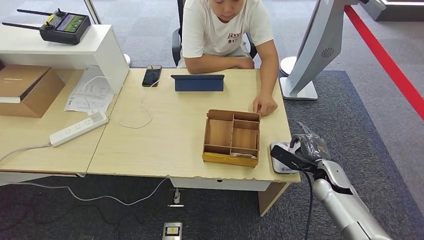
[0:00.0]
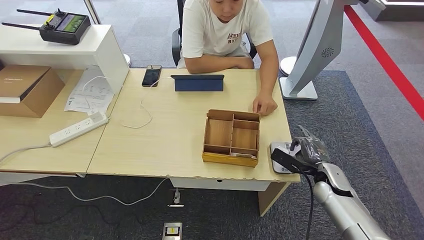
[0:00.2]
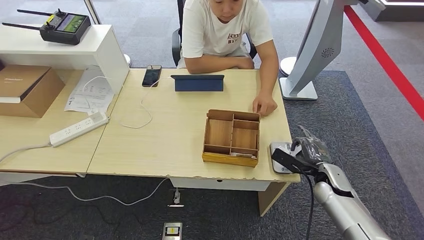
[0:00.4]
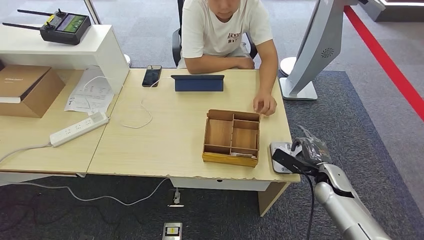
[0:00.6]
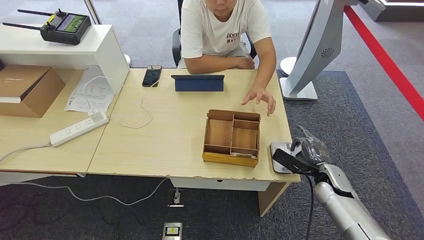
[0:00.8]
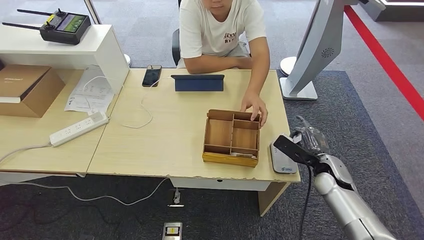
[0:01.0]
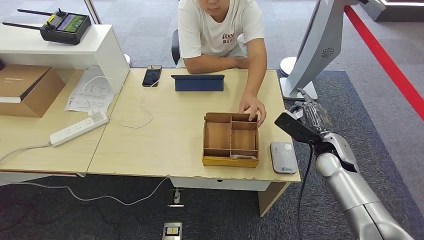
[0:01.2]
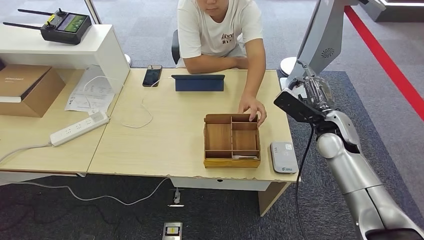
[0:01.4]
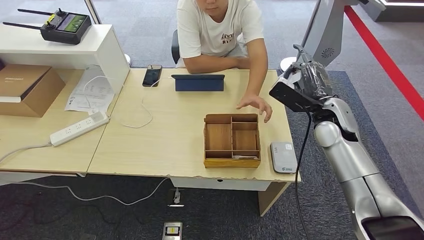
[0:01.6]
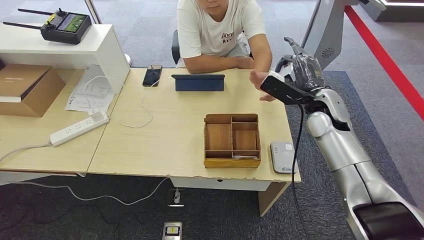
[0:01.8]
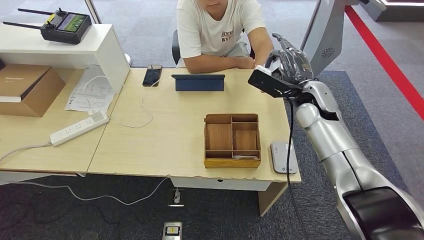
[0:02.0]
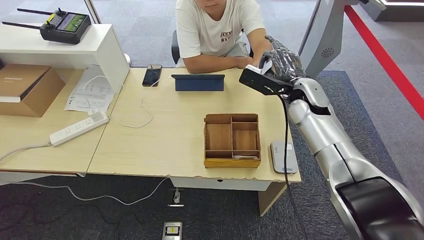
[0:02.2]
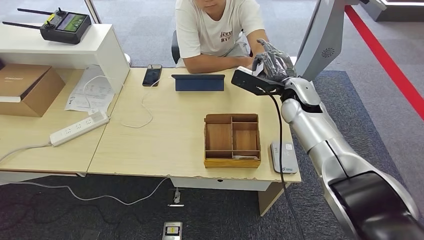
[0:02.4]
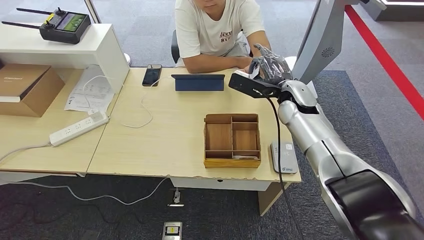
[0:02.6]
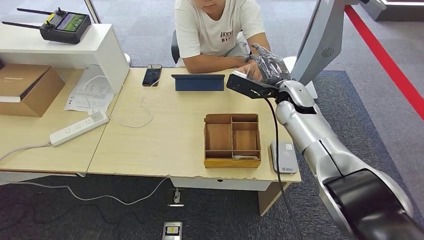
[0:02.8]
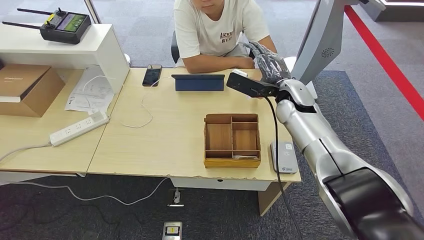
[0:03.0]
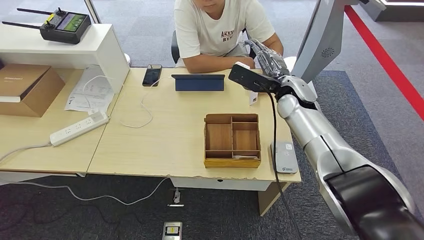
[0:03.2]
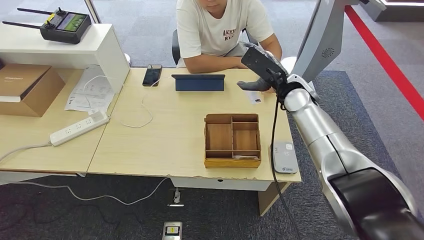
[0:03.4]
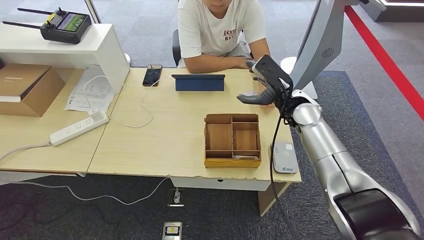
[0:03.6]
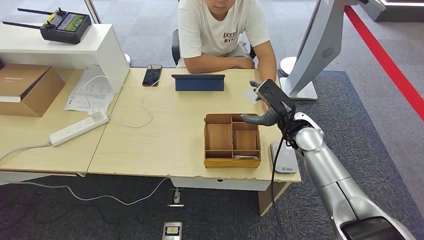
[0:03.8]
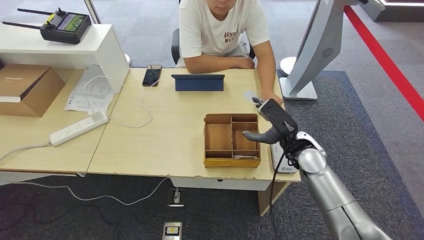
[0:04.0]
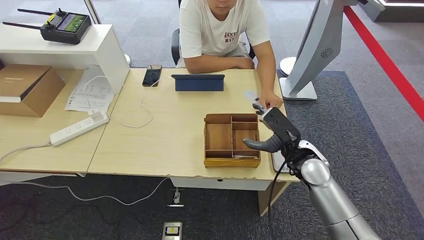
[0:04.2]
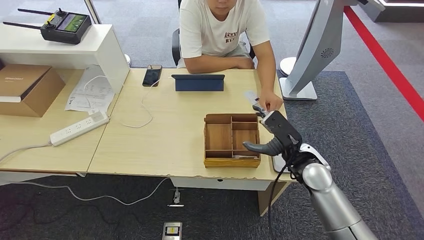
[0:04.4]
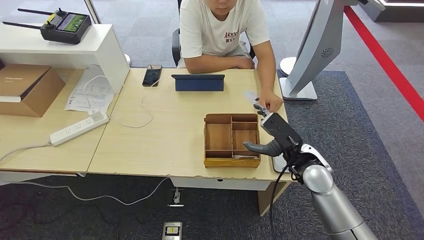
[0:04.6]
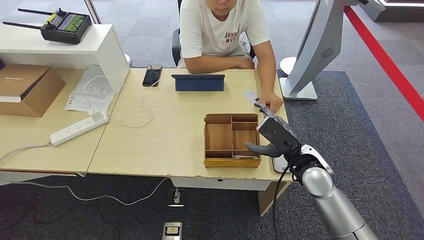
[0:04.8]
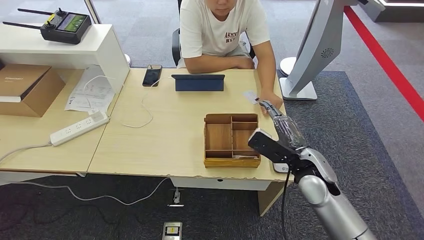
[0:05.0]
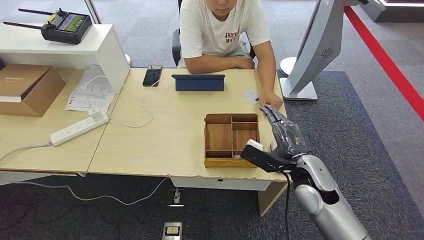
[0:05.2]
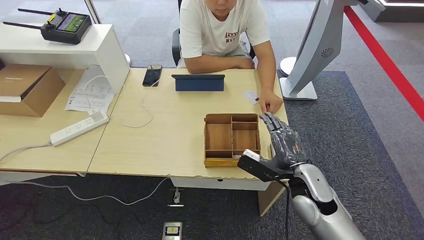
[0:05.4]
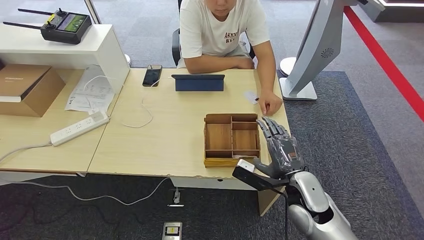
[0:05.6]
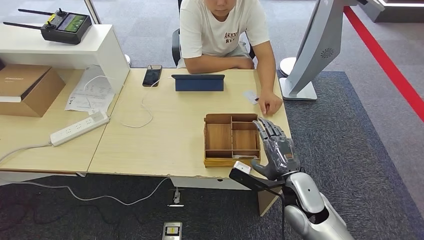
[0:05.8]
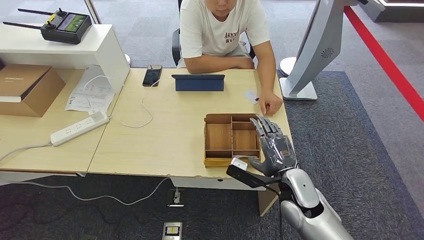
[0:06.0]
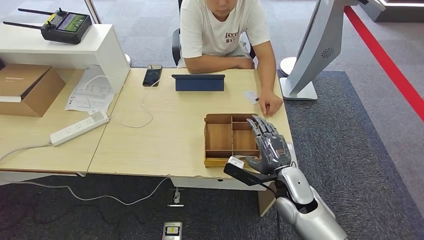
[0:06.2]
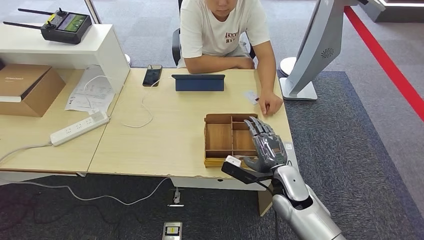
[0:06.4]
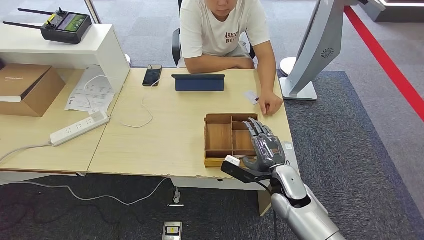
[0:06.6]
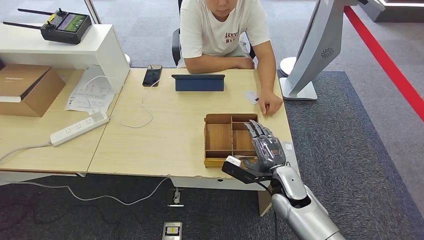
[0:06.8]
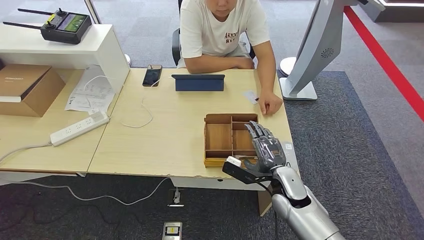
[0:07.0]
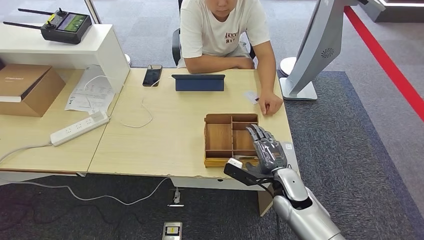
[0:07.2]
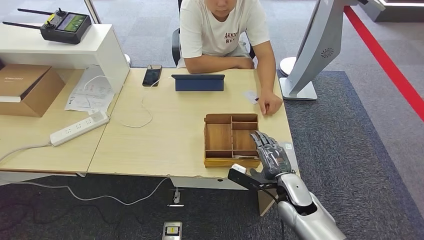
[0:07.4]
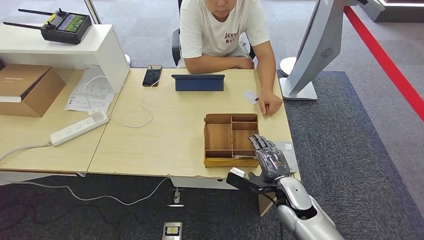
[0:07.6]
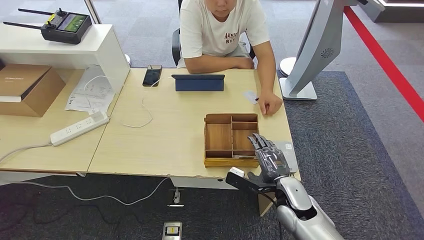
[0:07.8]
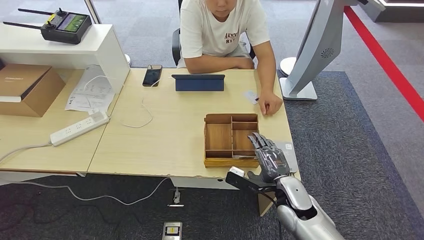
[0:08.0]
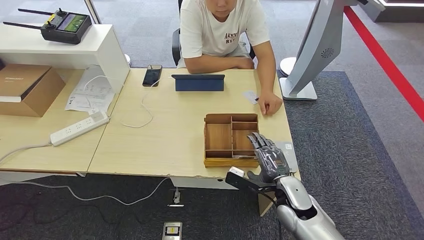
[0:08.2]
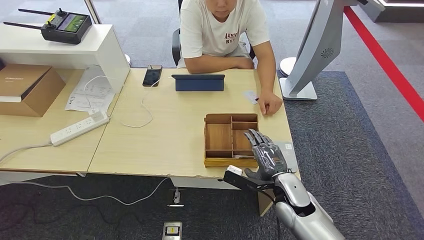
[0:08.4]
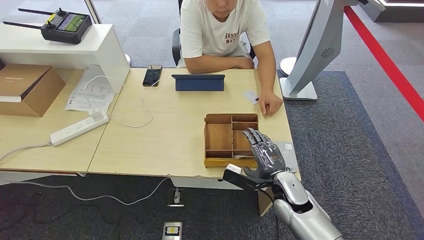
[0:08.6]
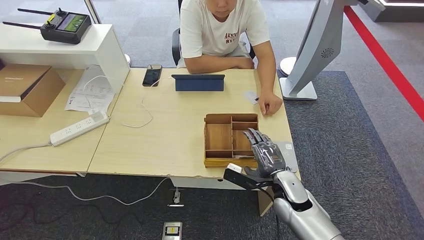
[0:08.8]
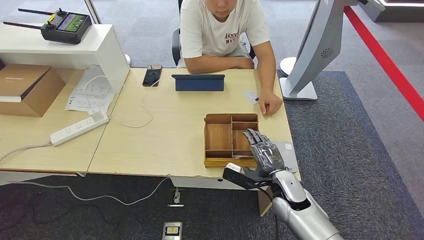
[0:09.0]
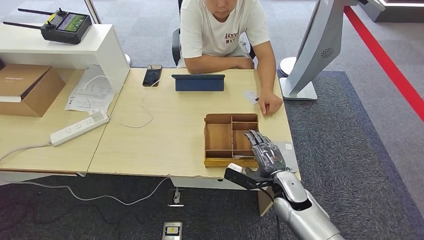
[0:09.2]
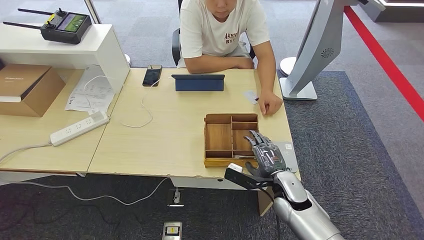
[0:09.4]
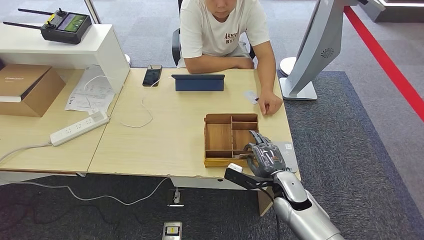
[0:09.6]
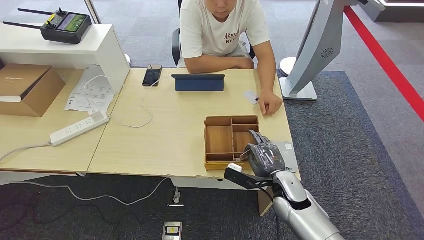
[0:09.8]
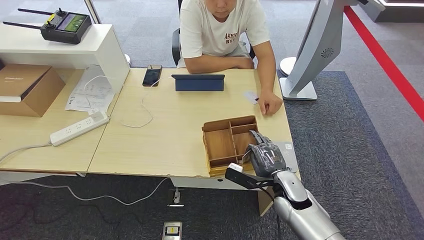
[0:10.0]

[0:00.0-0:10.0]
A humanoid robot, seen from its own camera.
Step, 0:02.0 to 0:04.0: Hand the ID card to the person.
0:00.0 to 0:01.4: The right hand moves upward and forward, about 15 cm.
0:01.4 to 0:02.8: The right hand travels to the left and forward by approximately 10 cm.
0:02.8 to 0:04.2: The right hand is displaced backward and downward by approximately 15 cm.
0:04.2 to 0:05.8: The right hand is displaced backward by roughly 5 cm.
0:05.8 to 0:07.2: The right hand shifts by roughly 5 cm.
0:07.2 to 0:10.0: The hands stay close to where they were, moving slightly.

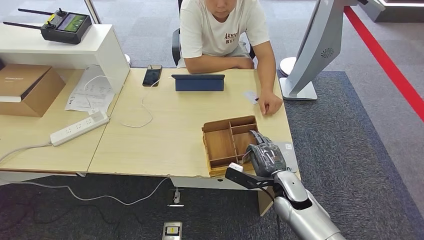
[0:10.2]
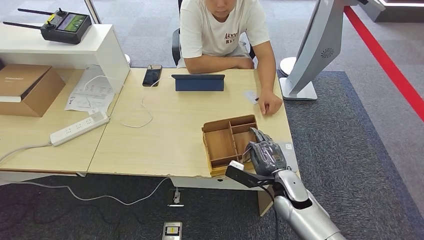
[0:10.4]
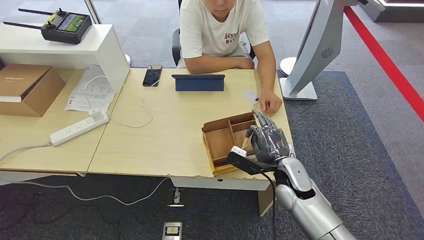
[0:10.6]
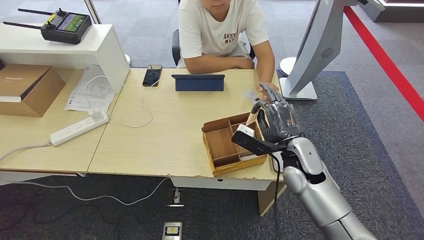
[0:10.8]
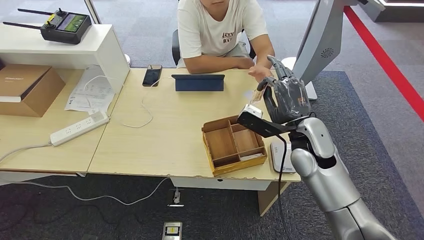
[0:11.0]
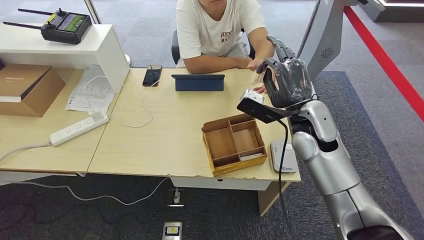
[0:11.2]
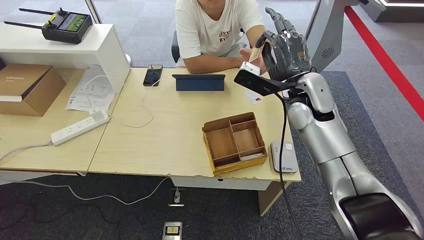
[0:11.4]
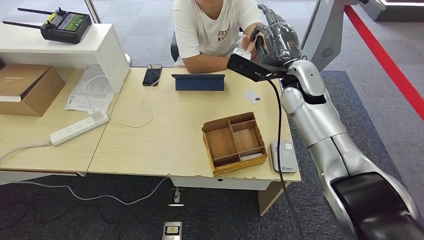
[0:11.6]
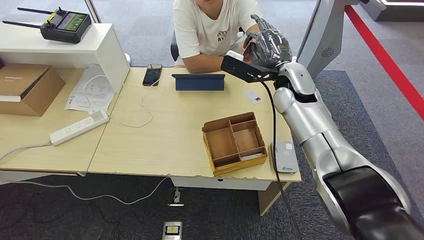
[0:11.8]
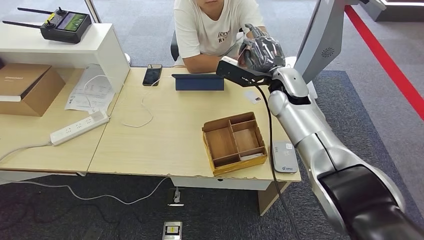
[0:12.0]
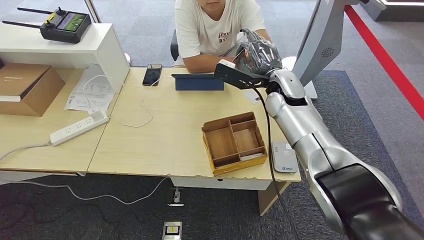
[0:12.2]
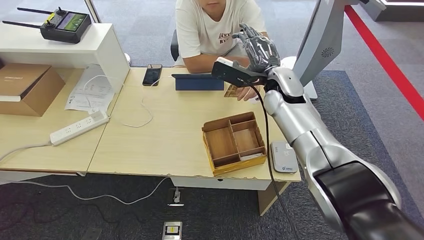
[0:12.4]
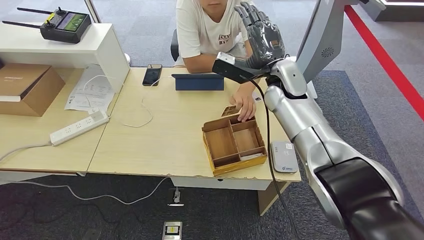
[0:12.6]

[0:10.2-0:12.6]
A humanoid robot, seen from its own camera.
Step, 0:10.8 to 0:12.6: Hand the room key to the person.
0:11.4 to 0:12.6: The right hand shifts by approximately 5 cm.

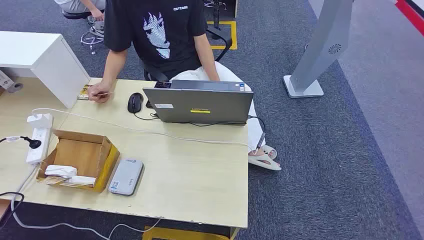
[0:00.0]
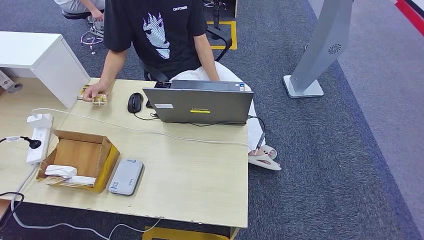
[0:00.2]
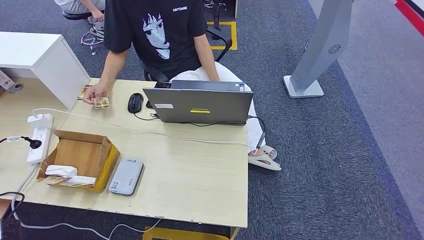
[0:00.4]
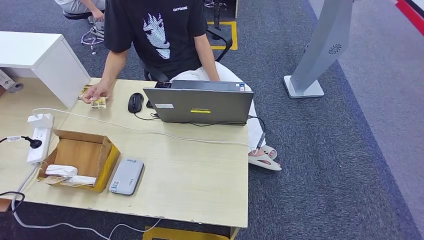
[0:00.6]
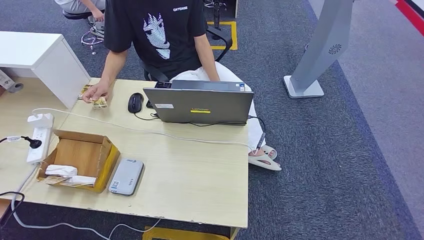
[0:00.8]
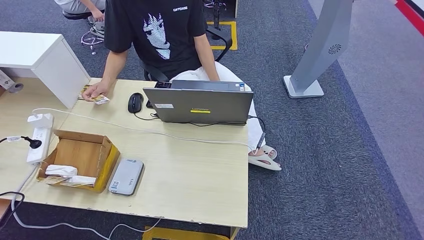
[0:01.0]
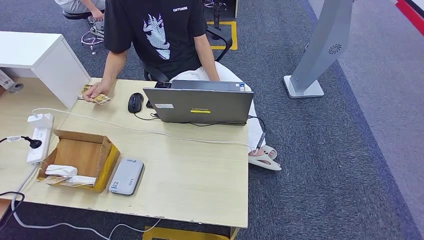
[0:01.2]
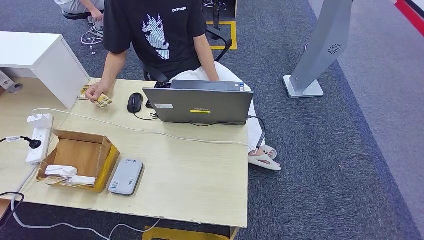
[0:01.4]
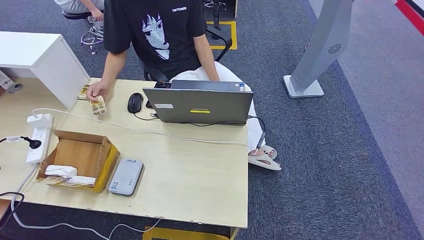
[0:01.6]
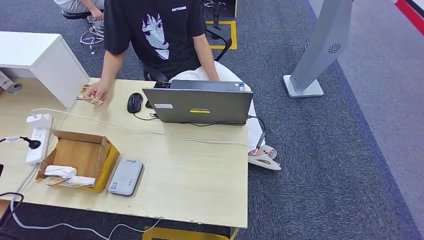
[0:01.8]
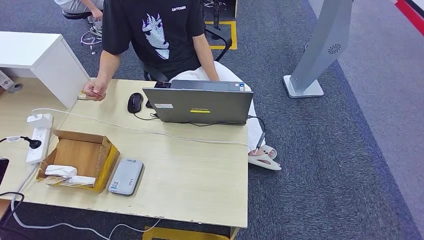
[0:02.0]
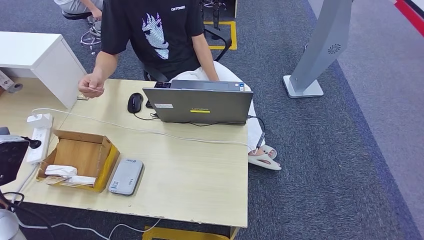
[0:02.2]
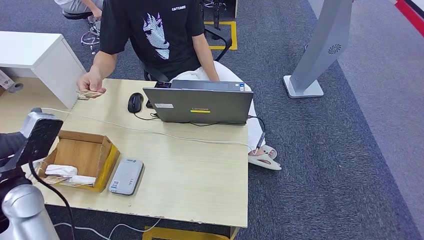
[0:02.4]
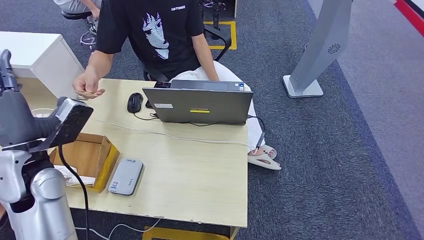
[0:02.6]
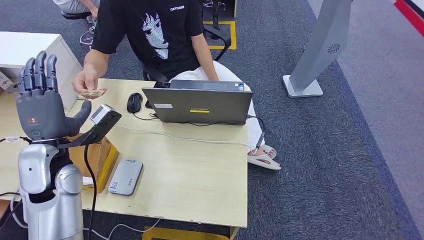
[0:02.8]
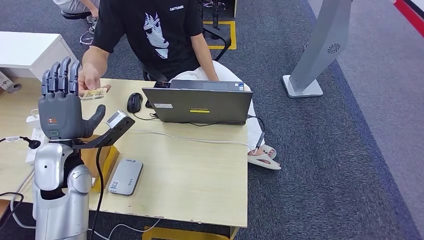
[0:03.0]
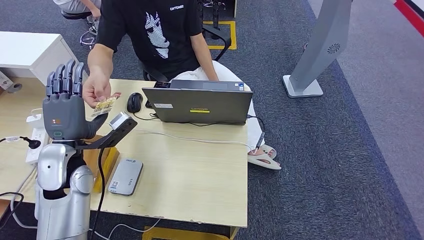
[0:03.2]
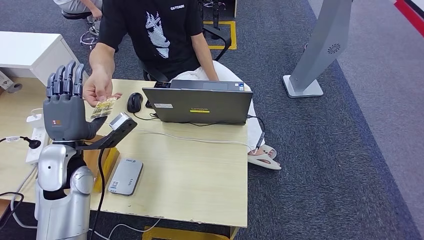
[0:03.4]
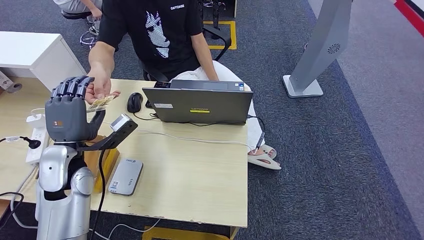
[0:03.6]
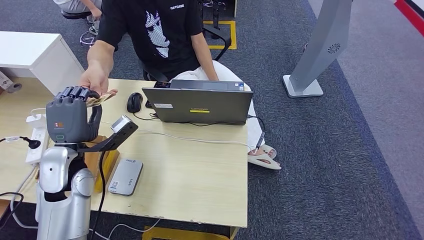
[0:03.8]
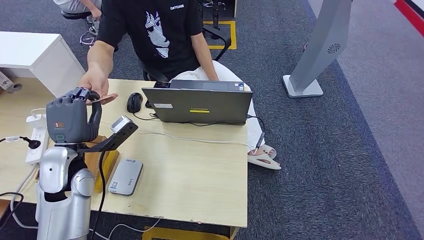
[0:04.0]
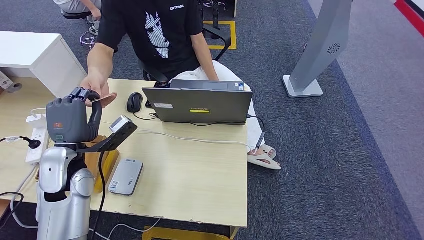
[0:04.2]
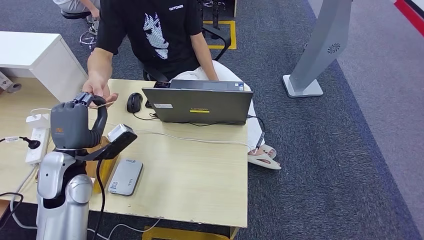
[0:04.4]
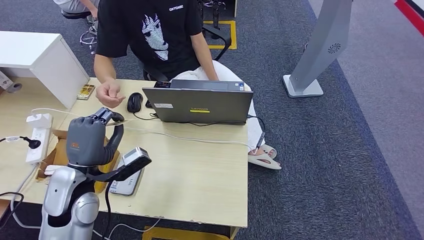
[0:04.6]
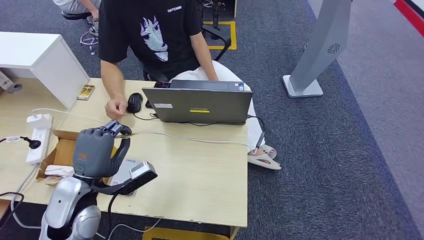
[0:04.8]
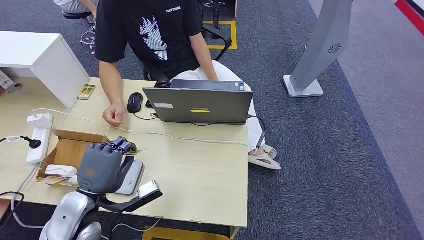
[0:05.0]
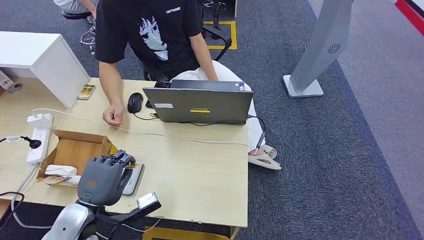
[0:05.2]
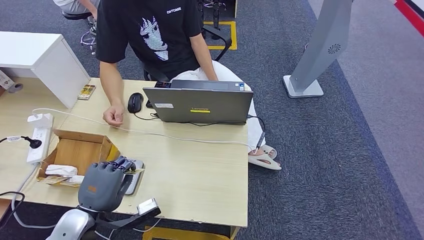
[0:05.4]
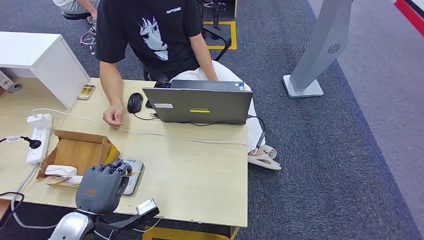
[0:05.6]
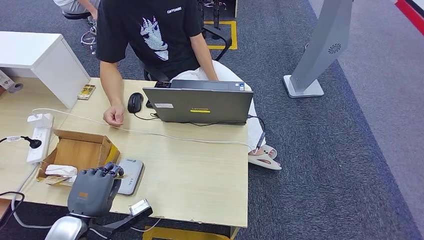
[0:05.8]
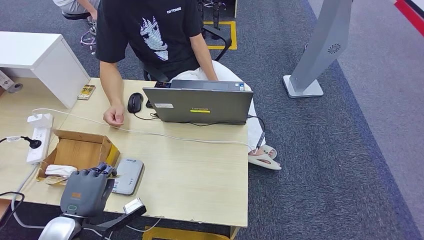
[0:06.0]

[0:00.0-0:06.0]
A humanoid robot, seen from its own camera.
Step, 0:00.0 to 0:03.6: Take the ID card from the person's hand.
0:01.6 to 0:03.0: The left hand goes some 20 cm forward and to the right.
0:03.0 to 0:04.4: The hands move only a little.
0:04.4 to 0:06.0: The left hand shifts approximately 15 cm backward and downward.
